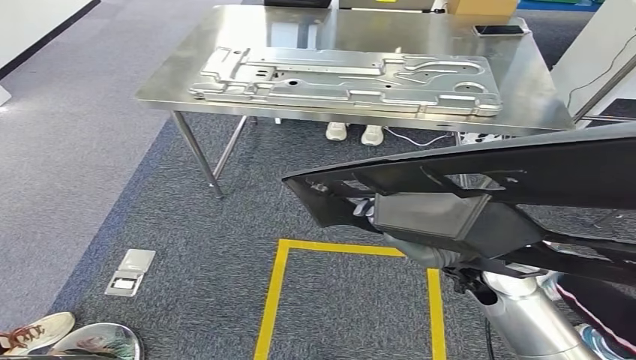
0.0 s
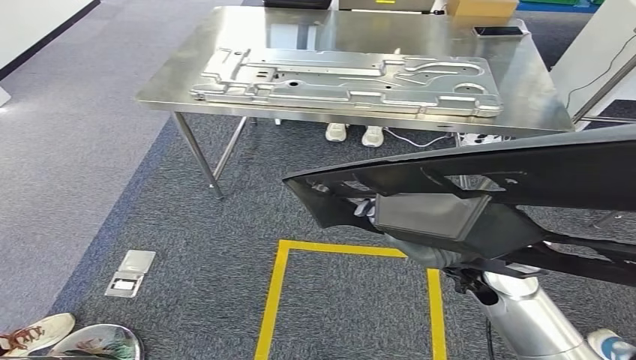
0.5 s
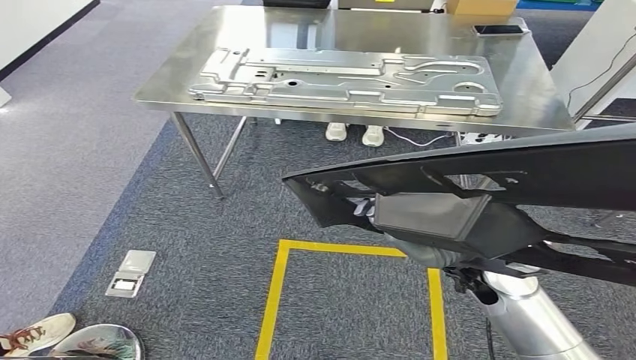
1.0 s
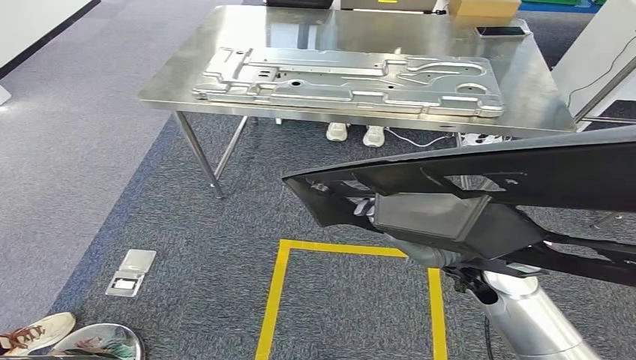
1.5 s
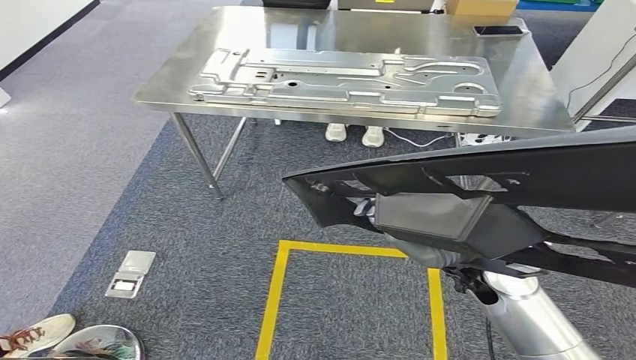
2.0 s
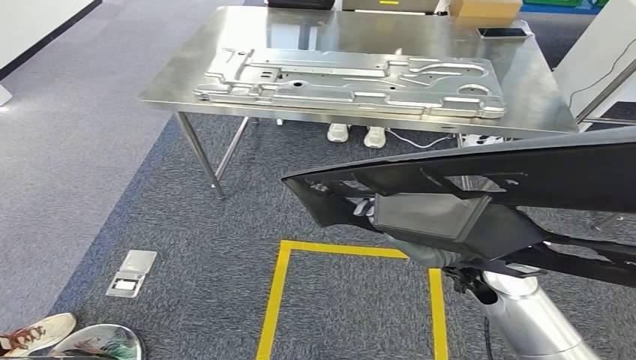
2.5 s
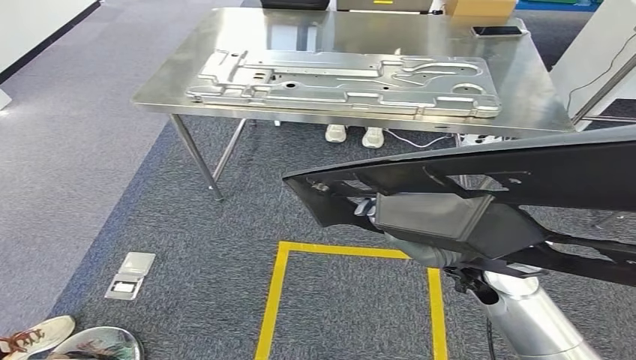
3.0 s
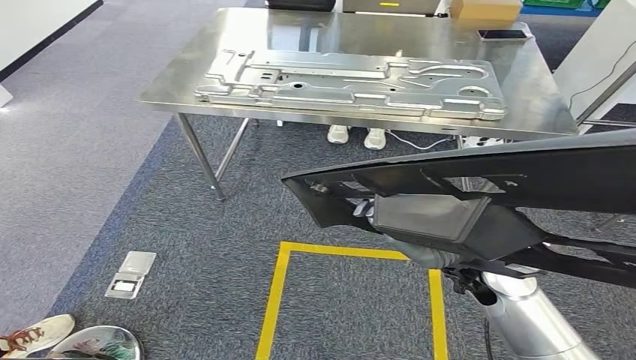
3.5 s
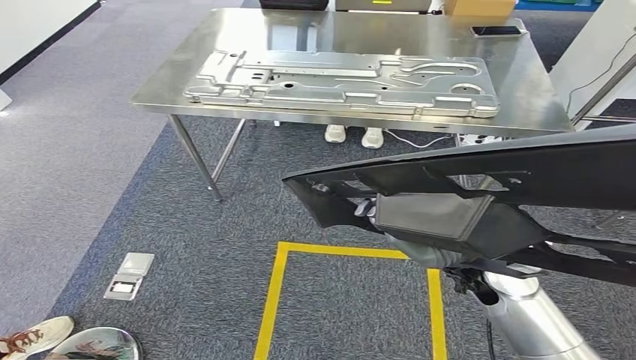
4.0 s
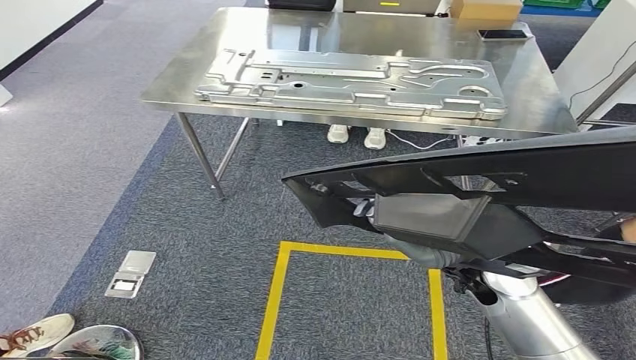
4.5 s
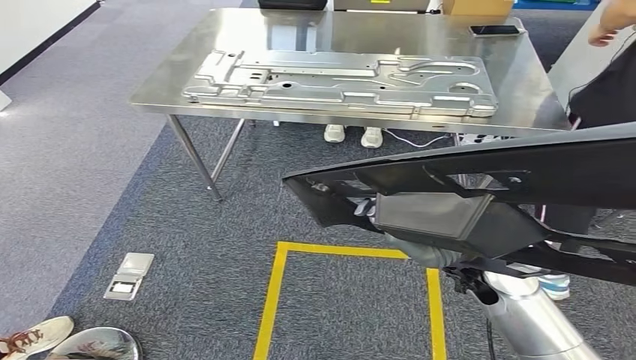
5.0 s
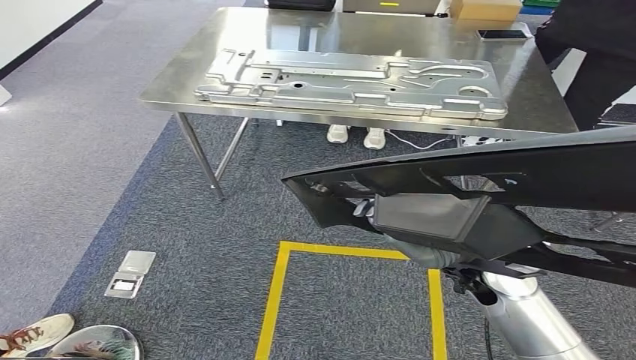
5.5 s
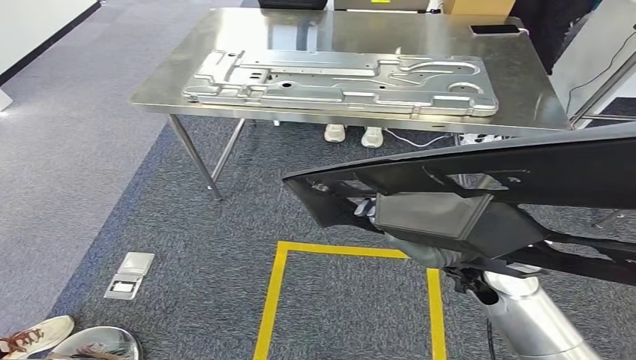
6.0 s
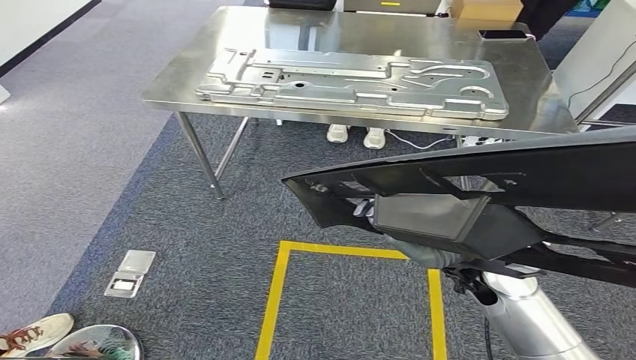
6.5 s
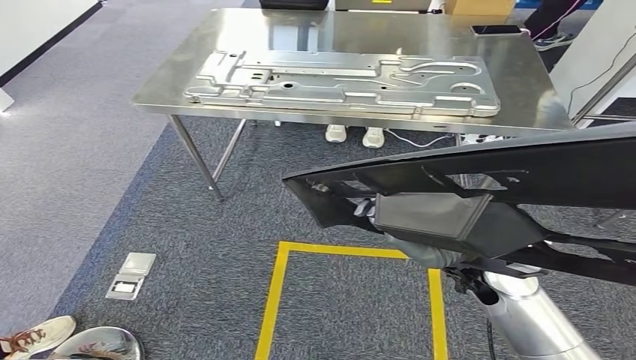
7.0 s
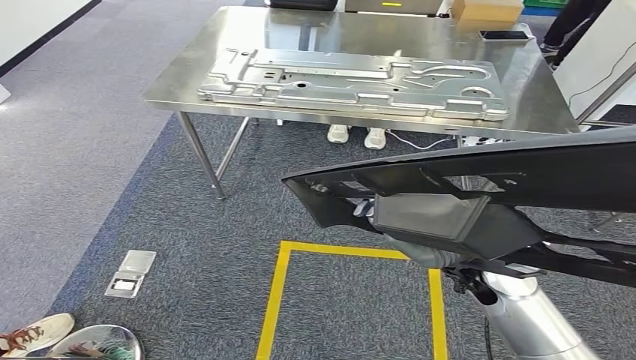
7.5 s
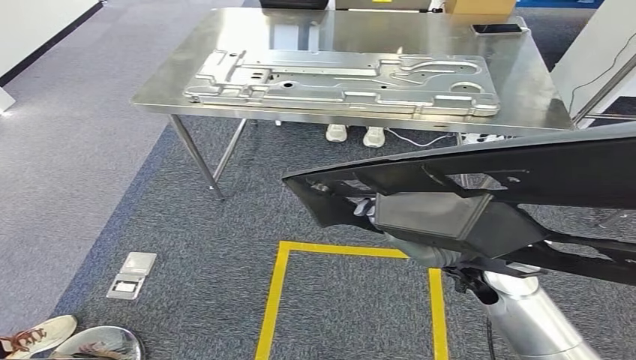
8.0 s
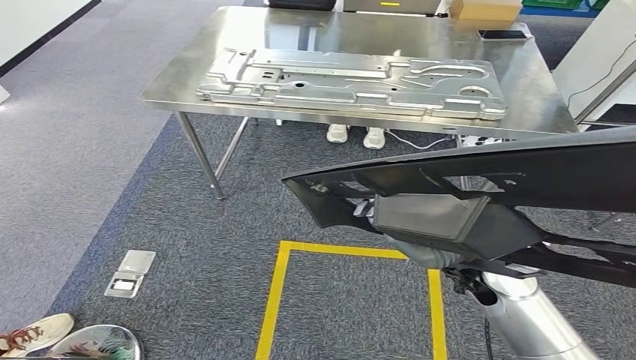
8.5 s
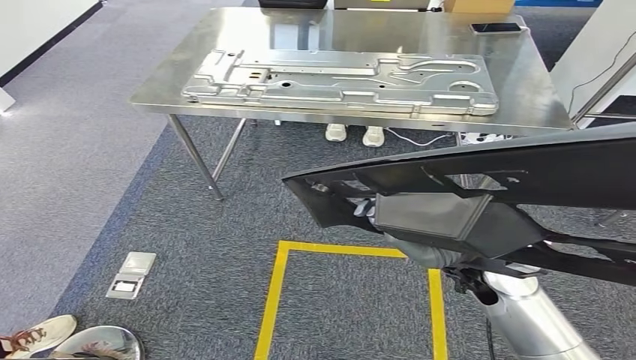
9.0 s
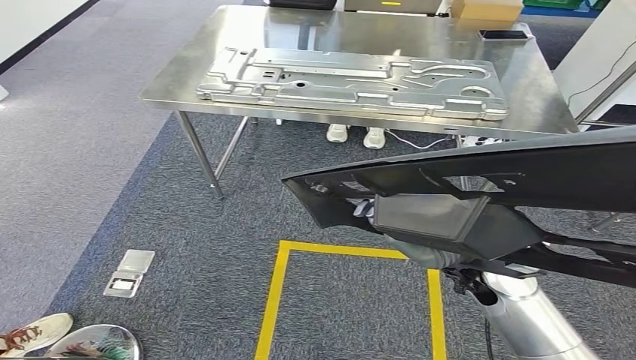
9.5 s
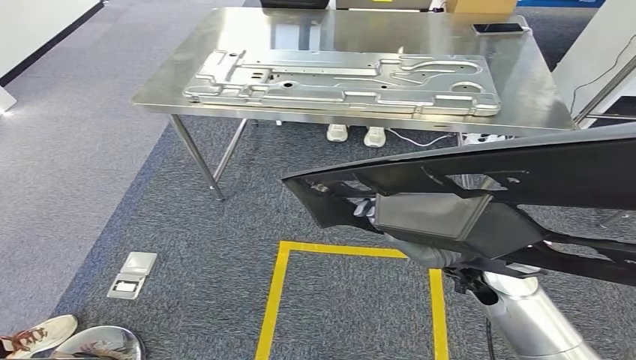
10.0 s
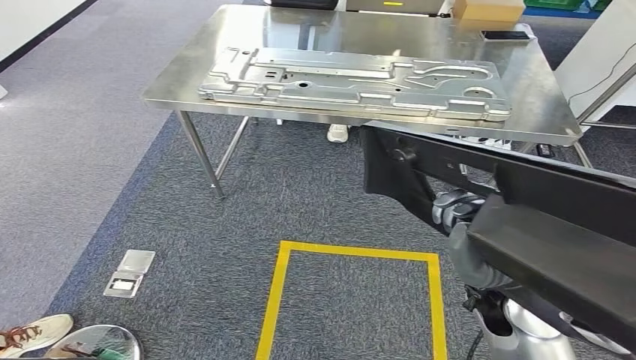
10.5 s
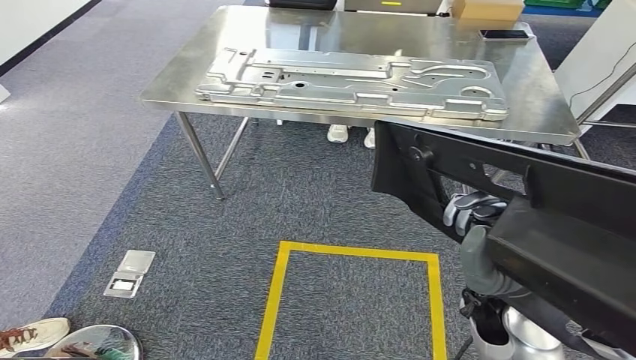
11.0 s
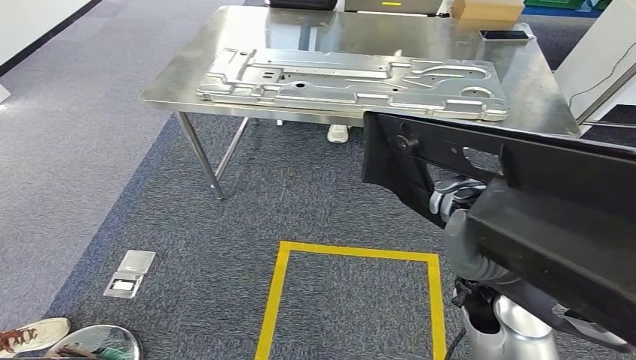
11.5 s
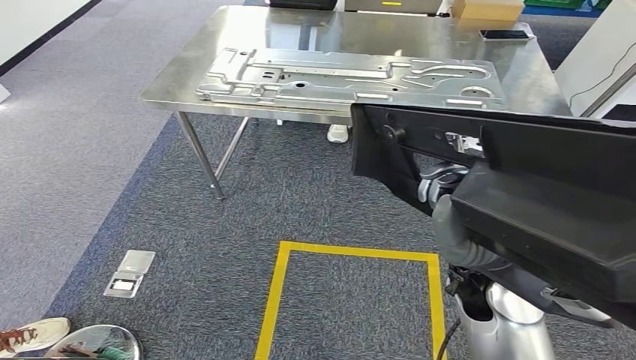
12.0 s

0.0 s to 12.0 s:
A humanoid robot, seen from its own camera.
0.0 to 10.0 s: Both hands stay put.

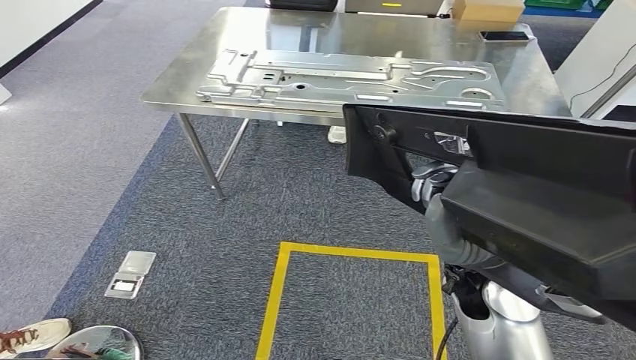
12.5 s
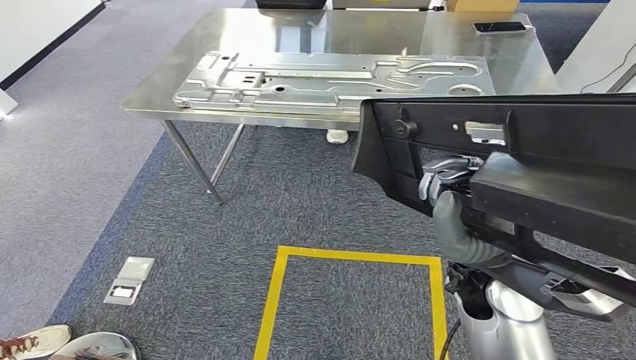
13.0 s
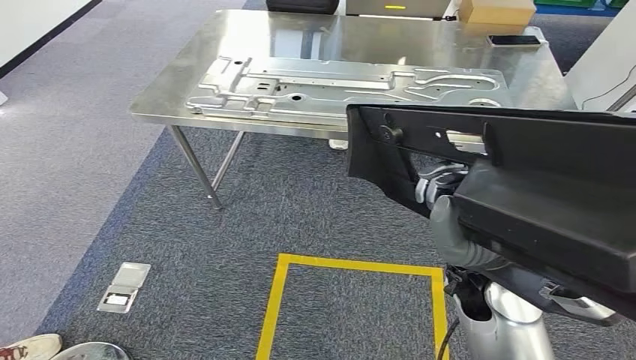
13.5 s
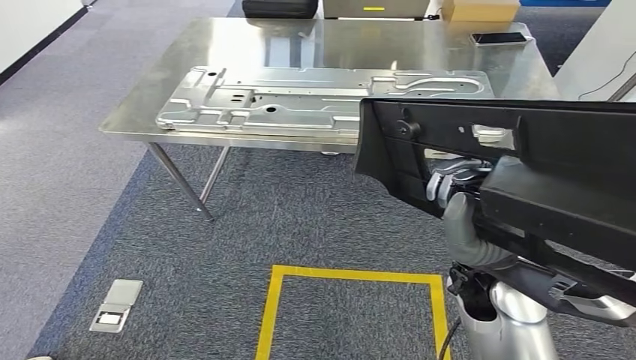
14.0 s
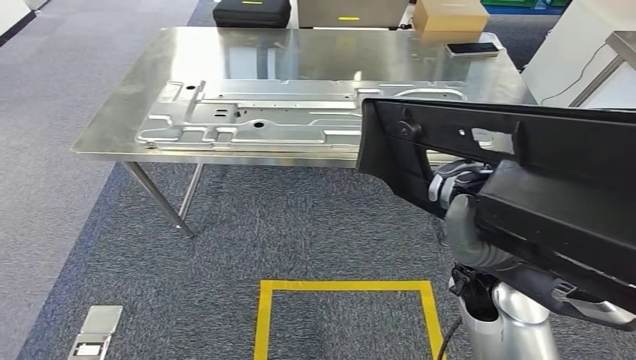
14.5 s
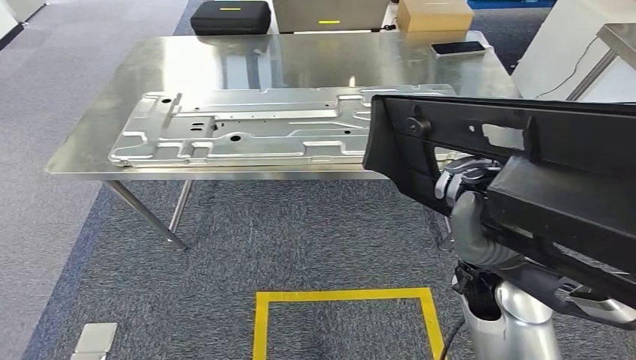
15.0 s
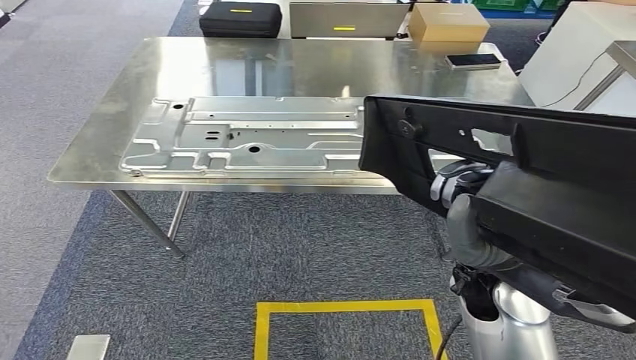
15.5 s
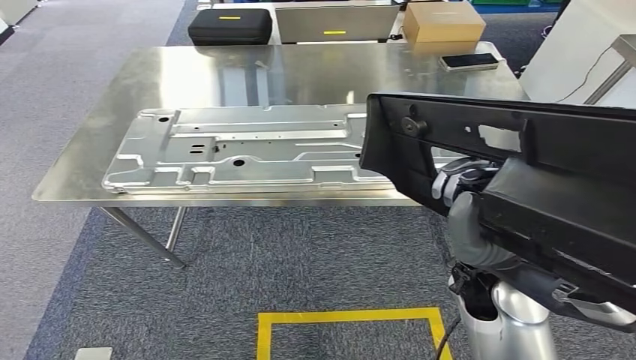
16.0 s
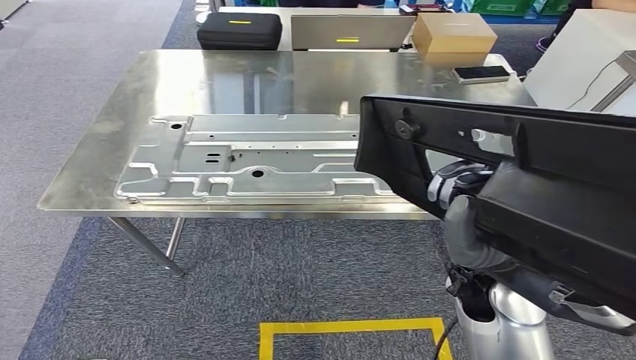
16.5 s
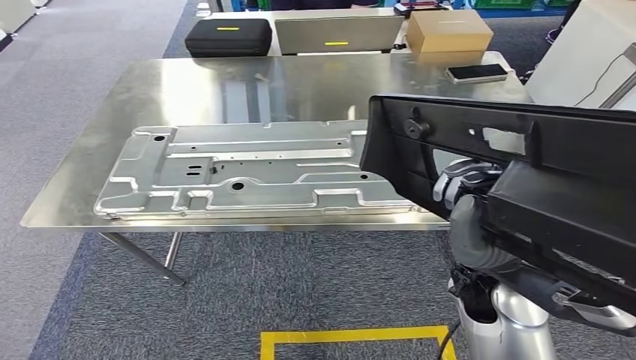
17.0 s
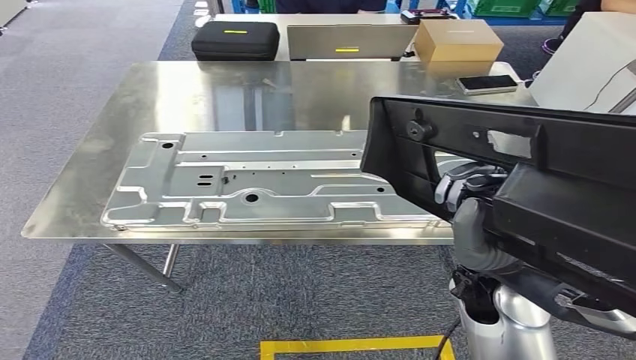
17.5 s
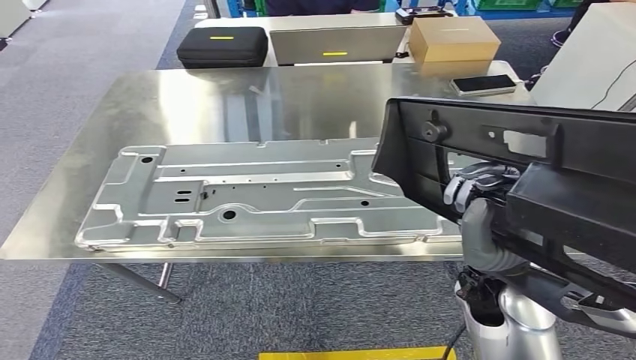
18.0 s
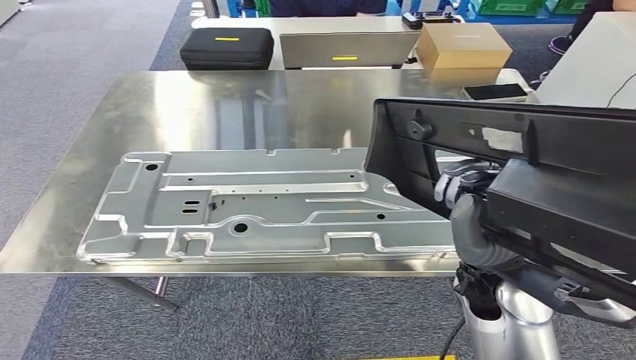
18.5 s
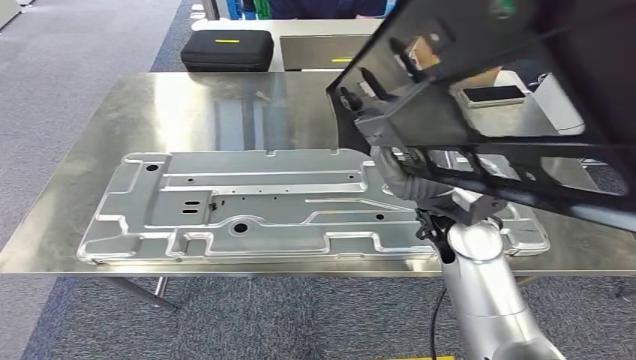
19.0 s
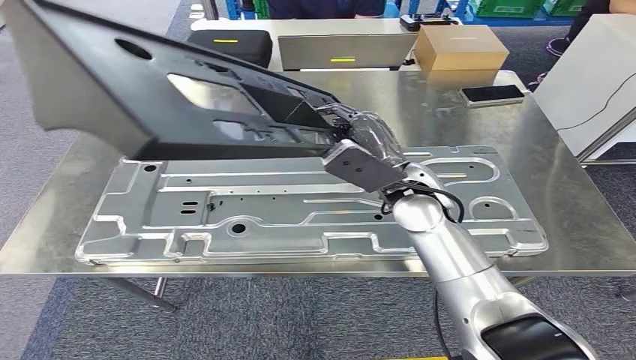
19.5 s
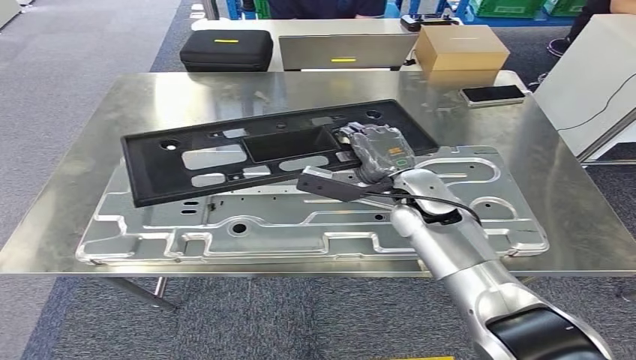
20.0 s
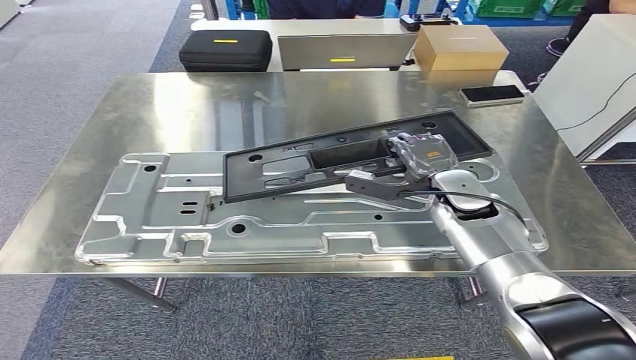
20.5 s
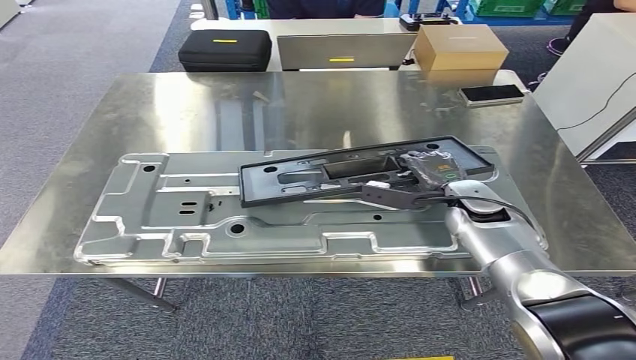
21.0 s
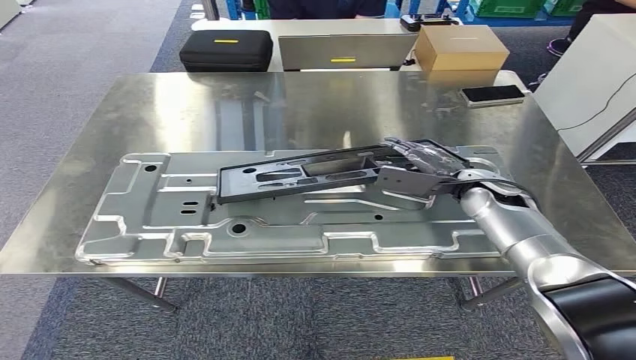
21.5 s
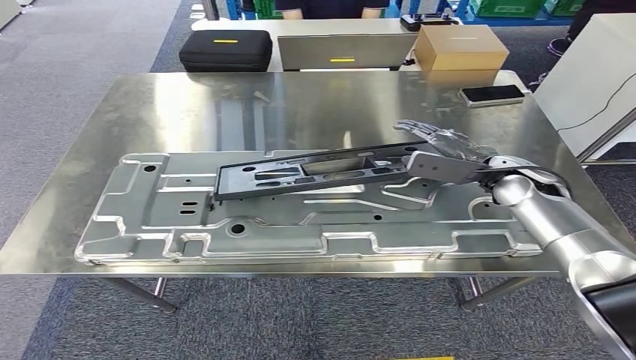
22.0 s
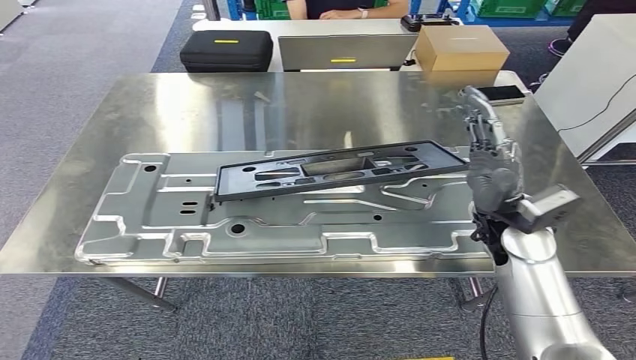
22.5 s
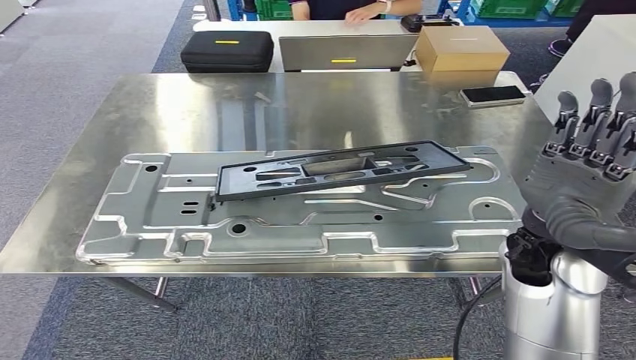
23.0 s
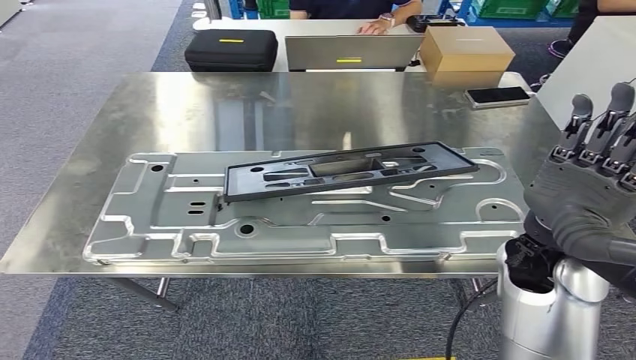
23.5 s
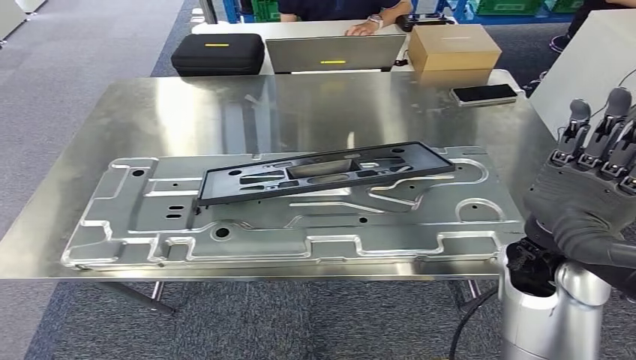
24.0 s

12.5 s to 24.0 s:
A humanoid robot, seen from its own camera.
Step, 12.5 to 18.5 s: Move to the table behind body.
Step, 19.0 to 21.0 s: Place the gray part on the table with right gripper.
